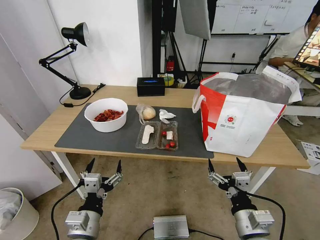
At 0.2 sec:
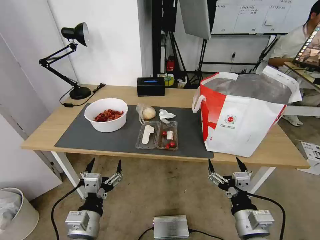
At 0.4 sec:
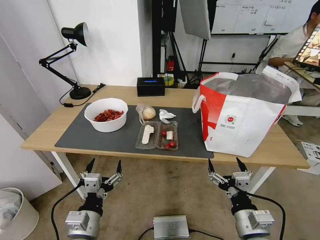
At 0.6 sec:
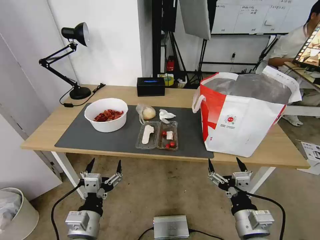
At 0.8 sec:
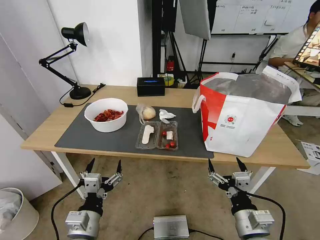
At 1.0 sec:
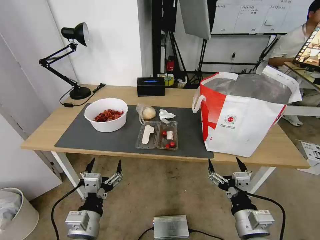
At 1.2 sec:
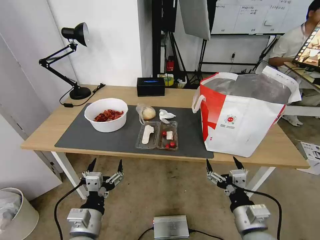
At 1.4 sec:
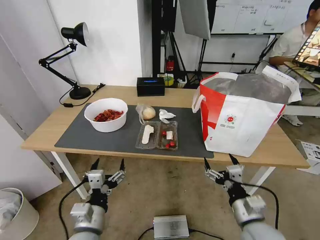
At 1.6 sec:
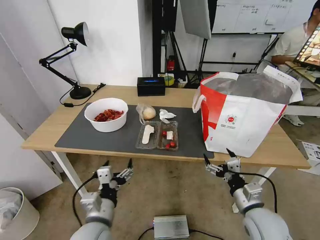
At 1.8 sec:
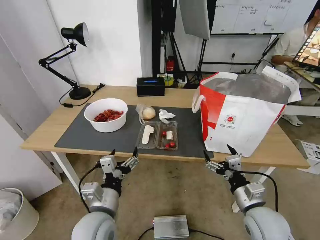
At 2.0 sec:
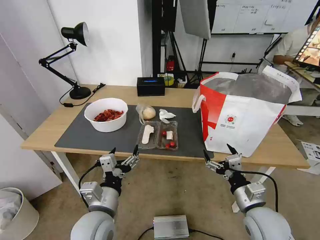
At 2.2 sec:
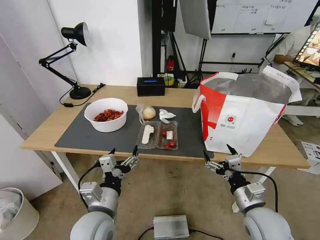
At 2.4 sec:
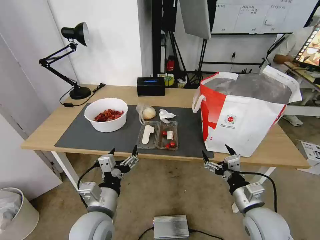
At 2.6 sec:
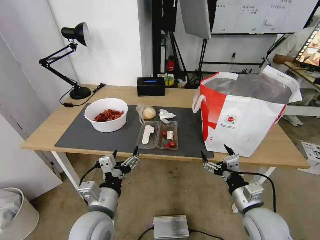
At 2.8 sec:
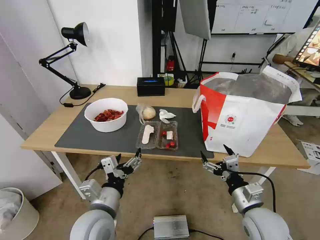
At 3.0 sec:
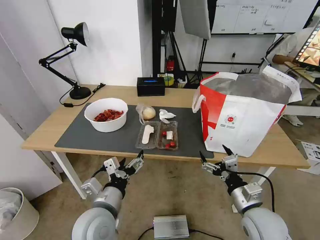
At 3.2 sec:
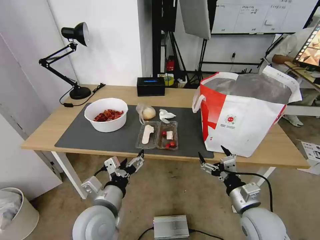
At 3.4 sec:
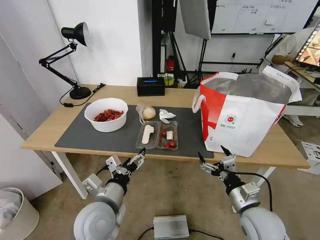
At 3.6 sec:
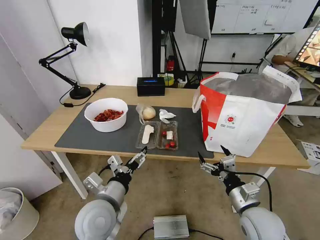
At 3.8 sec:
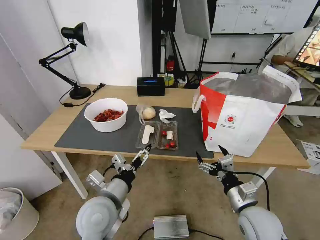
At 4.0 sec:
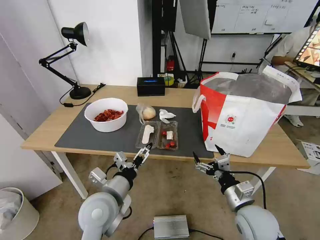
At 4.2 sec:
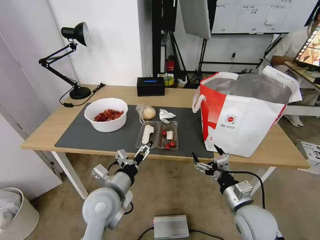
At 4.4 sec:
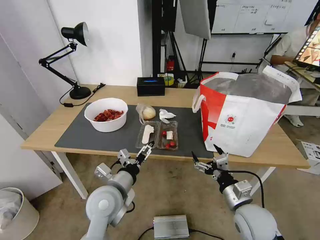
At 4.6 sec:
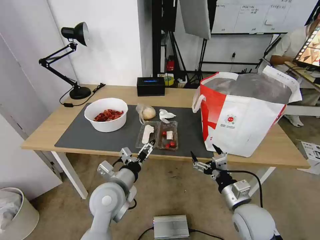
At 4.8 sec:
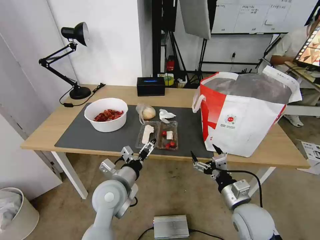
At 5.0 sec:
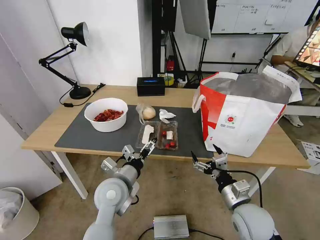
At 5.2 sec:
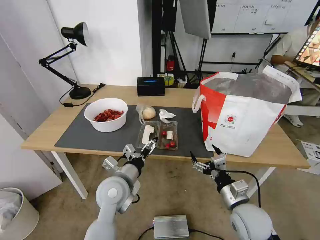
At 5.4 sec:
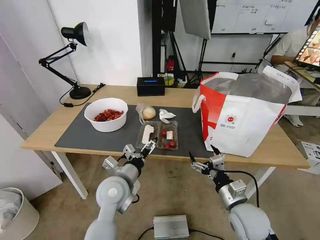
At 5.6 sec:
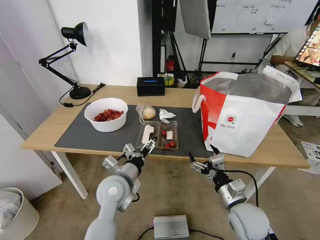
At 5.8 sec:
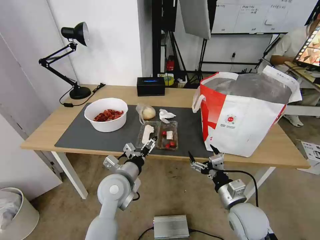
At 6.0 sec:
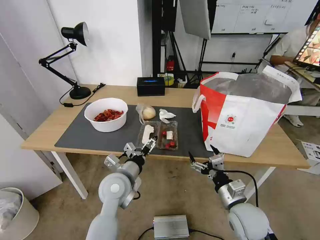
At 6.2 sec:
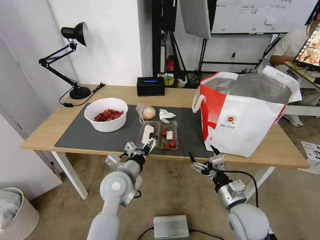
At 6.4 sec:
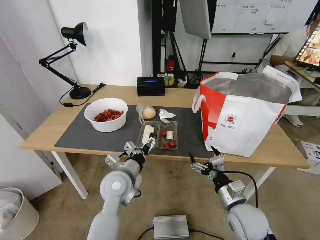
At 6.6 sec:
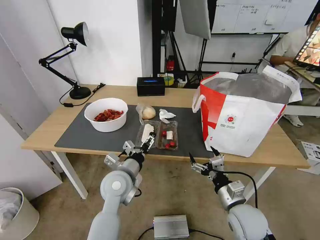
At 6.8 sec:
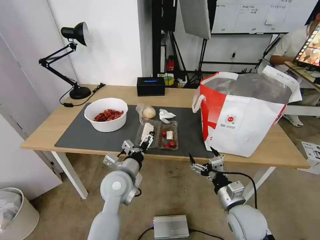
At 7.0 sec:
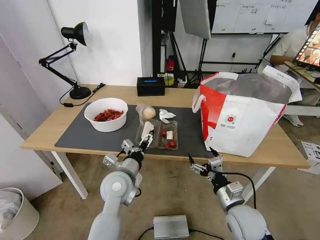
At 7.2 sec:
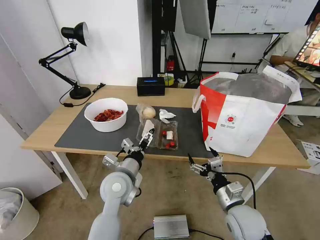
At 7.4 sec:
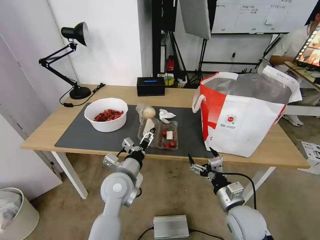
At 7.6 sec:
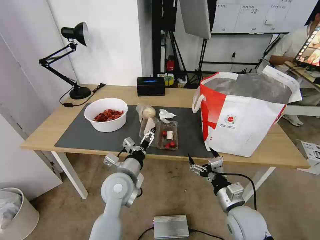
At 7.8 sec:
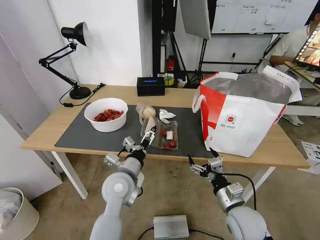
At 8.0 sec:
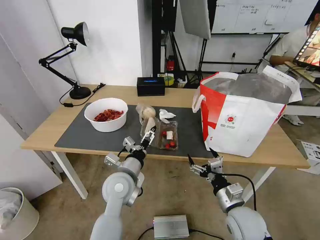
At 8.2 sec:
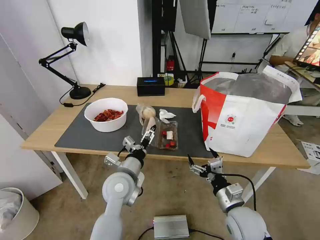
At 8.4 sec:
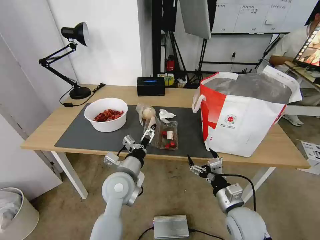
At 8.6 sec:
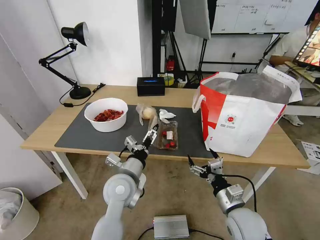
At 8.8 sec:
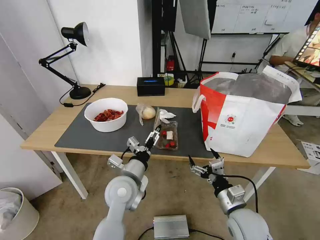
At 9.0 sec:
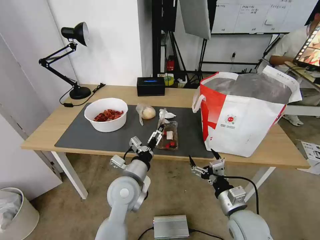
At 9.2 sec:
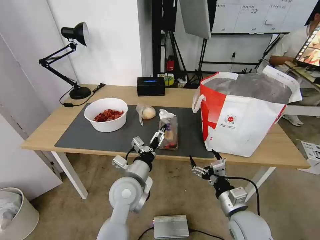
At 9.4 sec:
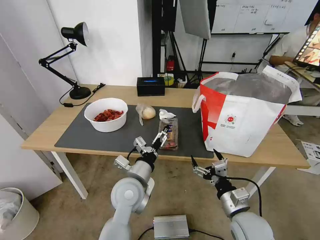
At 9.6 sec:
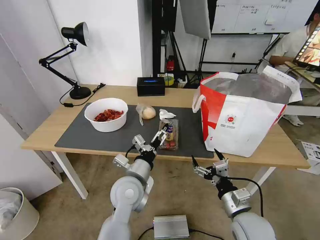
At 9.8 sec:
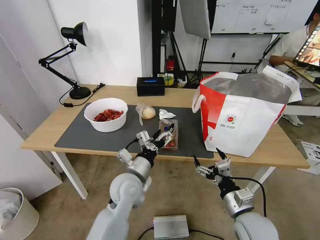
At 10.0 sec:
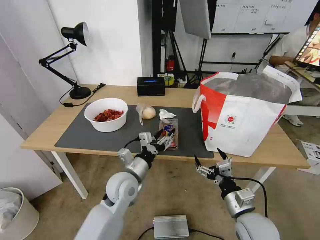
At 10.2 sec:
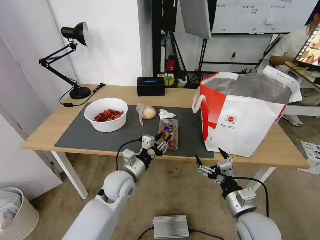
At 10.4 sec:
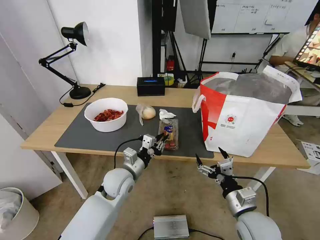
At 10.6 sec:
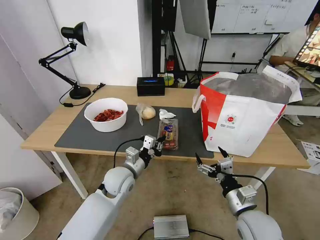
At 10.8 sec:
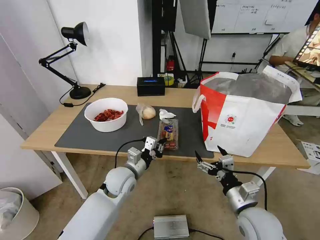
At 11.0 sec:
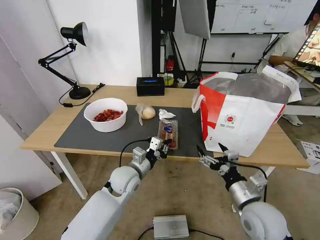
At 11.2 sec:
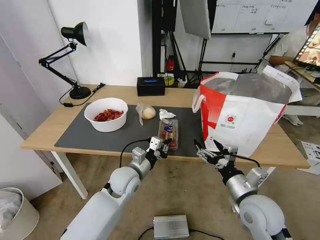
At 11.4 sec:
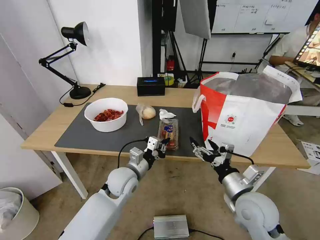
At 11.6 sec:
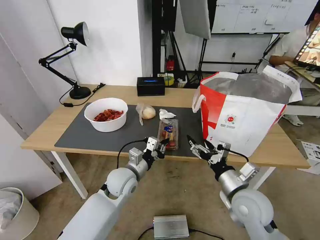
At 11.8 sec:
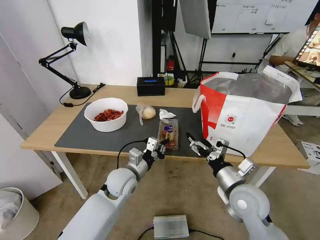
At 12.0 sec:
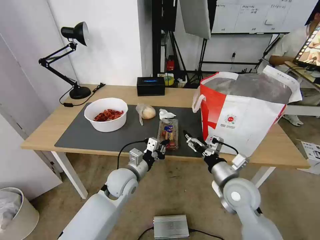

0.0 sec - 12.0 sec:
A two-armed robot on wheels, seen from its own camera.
Task of the whole recording: Pick up the trash from the table and place it into the takeout bag.
3.0 sec - 4.4 sec: The left gripper is displaced forward by some 5 cm.
4.4 sec - 9.0 sec: The grippers make only small movements.
9.0 sec - 10.4 sec: The left gripper heads forward, covering some 5 cm, and closes.
10.4 sec - 12.0 sec: The right gripper is displaced forward by approximately 10 cm.

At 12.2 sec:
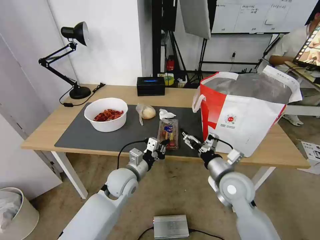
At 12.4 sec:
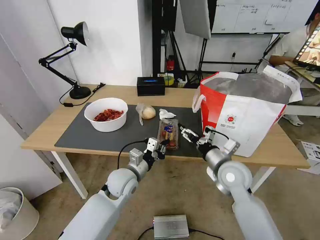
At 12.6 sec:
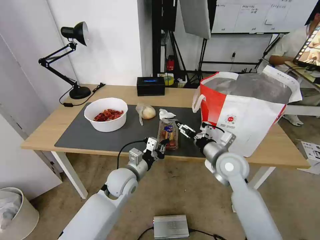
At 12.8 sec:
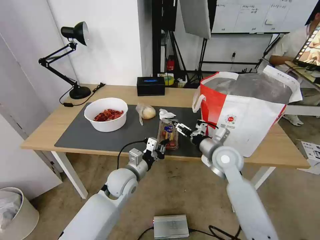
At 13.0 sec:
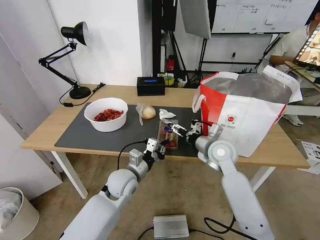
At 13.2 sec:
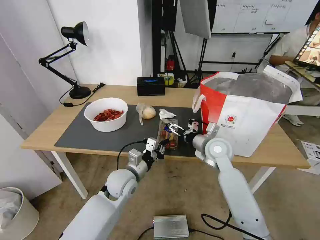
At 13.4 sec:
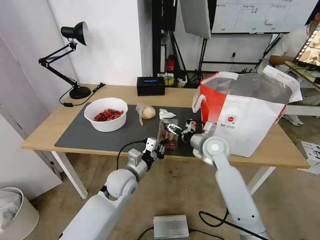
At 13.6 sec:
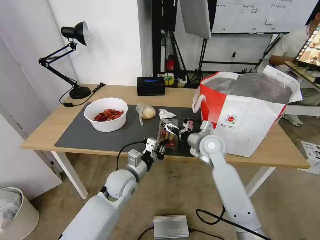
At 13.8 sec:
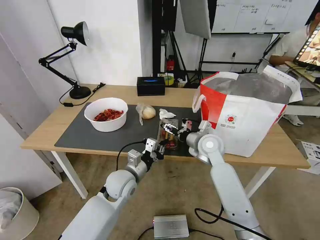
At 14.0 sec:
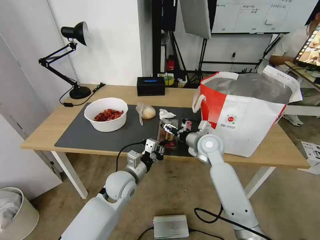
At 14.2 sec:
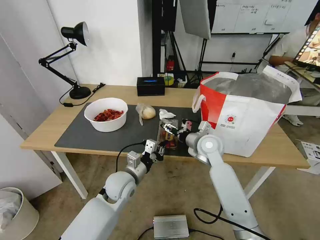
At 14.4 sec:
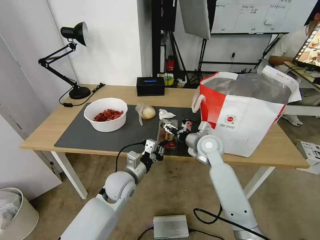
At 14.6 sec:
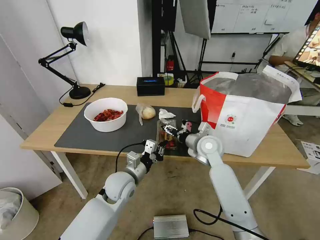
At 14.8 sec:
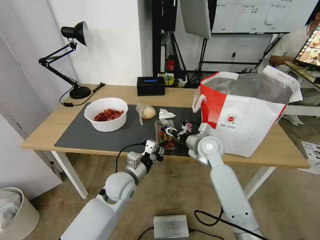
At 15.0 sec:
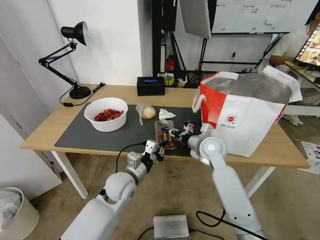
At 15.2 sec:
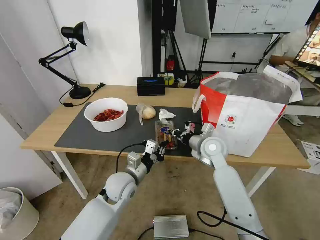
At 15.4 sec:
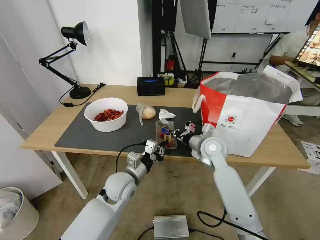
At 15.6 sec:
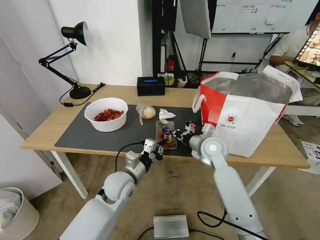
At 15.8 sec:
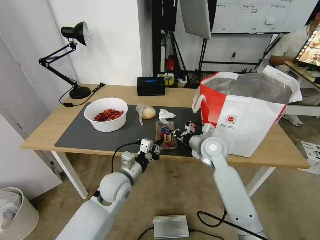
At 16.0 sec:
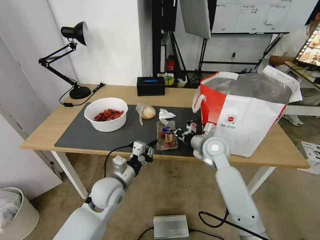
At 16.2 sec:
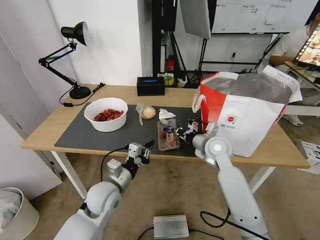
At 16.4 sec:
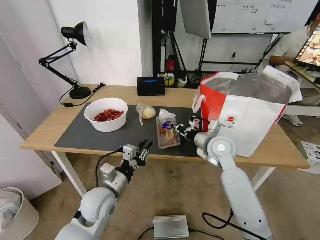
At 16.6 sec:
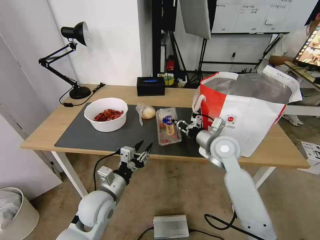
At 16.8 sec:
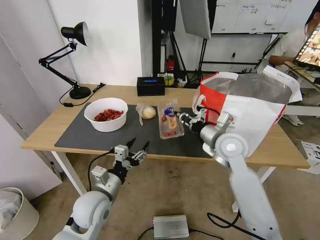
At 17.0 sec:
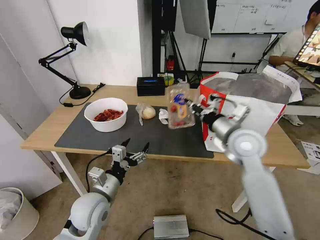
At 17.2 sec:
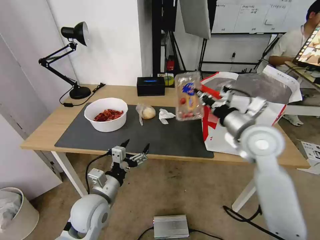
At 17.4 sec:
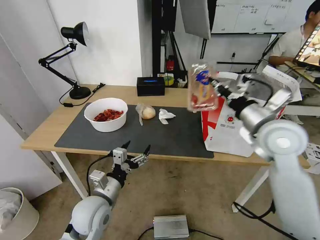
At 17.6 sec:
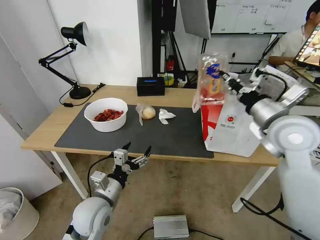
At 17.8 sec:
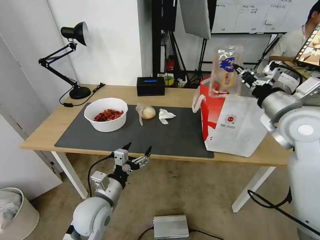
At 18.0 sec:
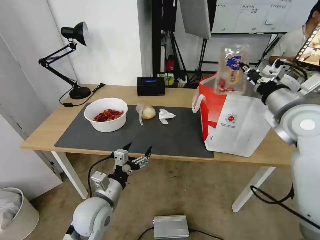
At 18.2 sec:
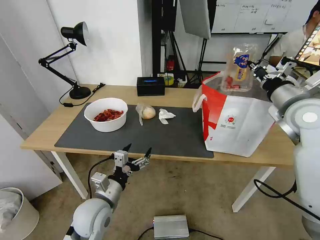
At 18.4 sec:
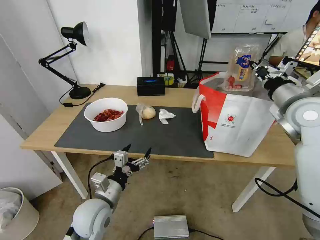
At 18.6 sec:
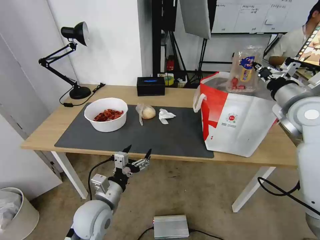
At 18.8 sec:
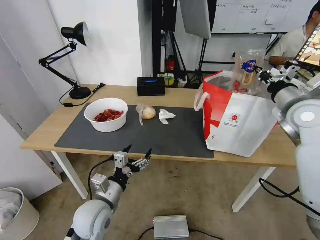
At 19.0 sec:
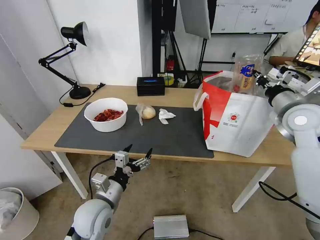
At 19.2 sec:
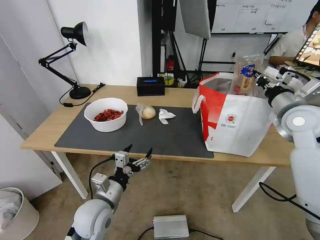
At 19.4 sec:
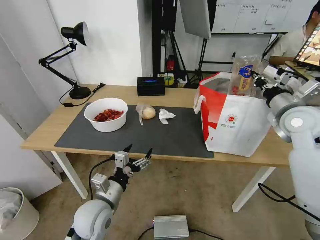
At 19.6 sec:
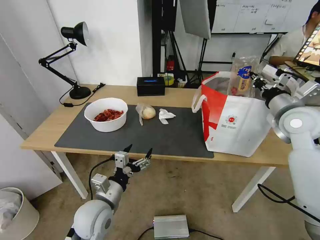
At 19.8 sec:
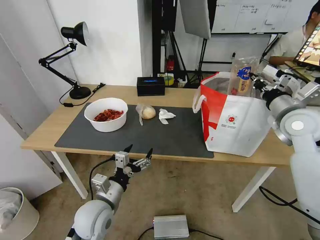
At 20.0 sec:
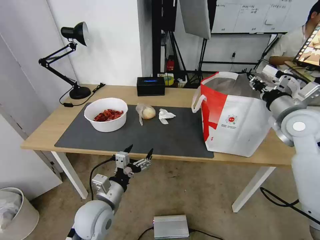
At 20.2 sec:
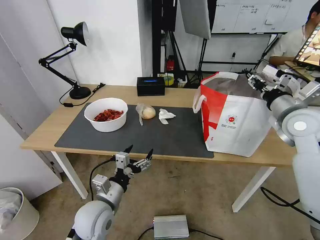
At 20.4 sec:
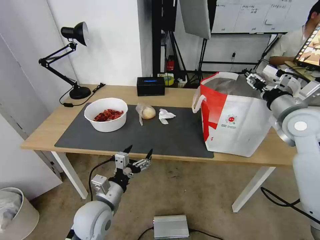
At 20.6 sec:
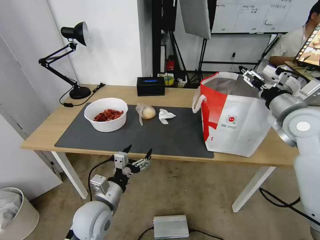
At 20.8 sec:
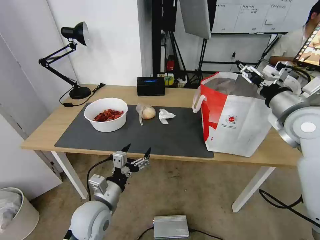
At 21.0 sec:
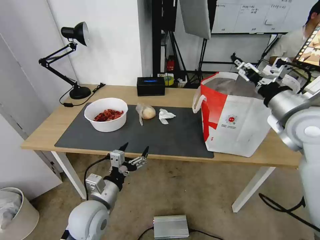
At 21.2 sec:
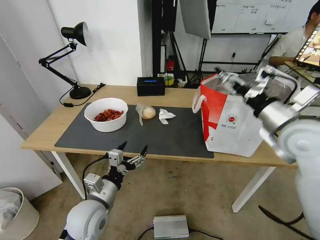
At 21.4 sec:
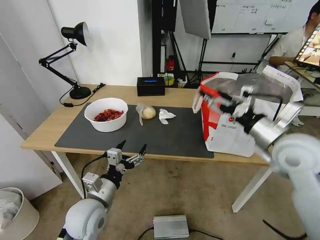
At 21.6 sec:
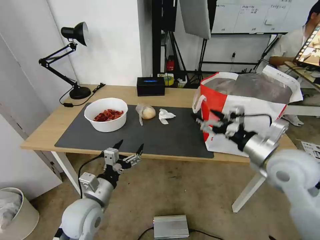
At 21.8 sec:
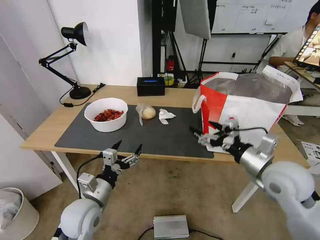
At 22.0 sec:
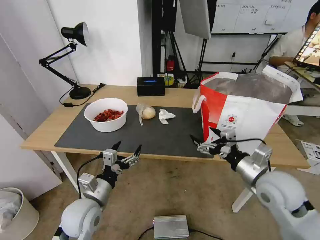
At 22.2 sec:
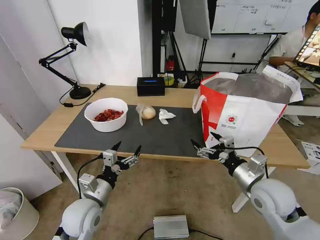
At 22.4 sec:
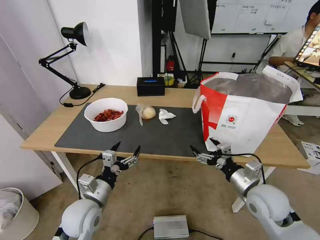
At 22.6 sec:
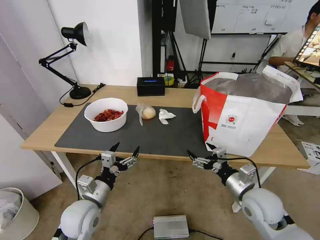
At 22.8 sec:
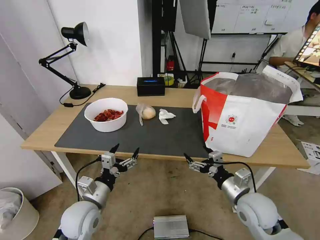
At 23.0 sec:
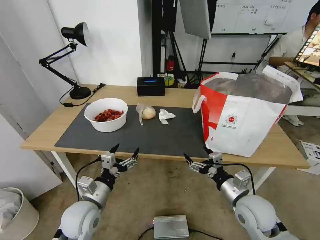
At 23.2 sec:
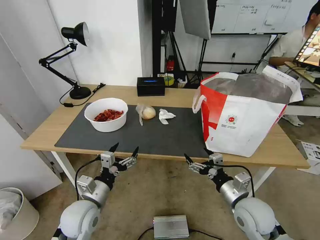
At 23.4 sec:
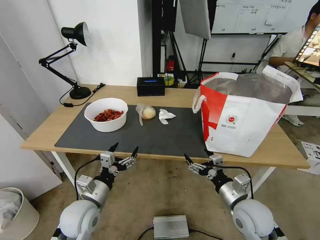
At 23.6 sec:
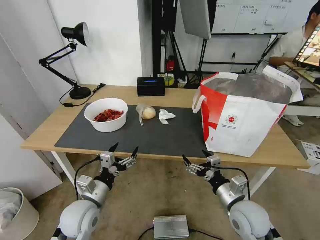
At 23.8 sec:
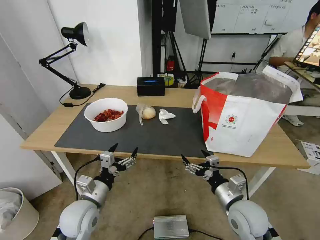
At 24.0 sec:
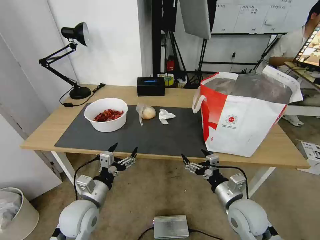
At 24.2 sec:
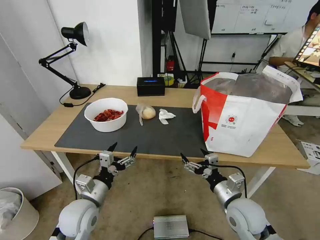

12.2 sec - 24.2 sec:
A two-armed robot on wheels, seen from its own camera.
Task of the whole recording: Pick up the trash from the table and place it into the takeout bag.
12.2 sec - 13.8 sec: The right gripper is displaced forward by about 15 cm.
13.8 sec - 15.2 sec: The right gripper closes.
15.2 sec - 16.6 sec: The left gripper heads backward and to the left, covering approximately 10 cm, and opens its fingers.
16.6 sec - 18.2 sec: The left gripper opens up. The right gripper moves to the right and upward, some 20 cm.
18.2 sec - 19.8 sec: The grippers make only small movements.
19.8 sec - 21.2 sec: The right gripper heads backward and to the left, covering about 10 cm, and opens up.
21.2 sec - 22.6 sec: The right gripper moves downward, approximately 20 cm.
22.6 sec - 24.2 sec: The right gripper moves about 5 cm.
